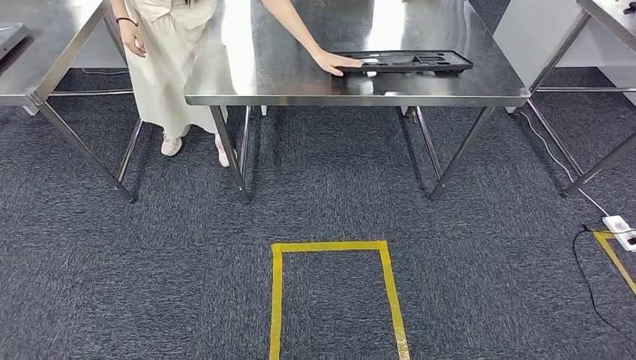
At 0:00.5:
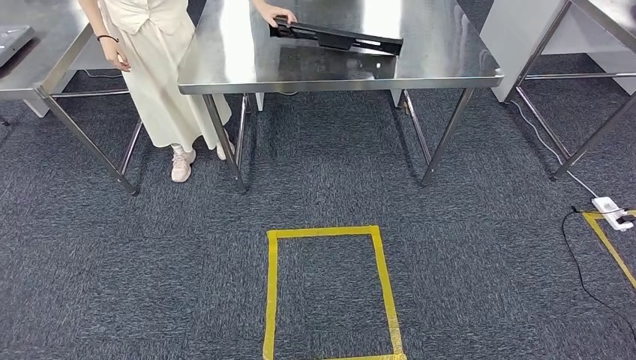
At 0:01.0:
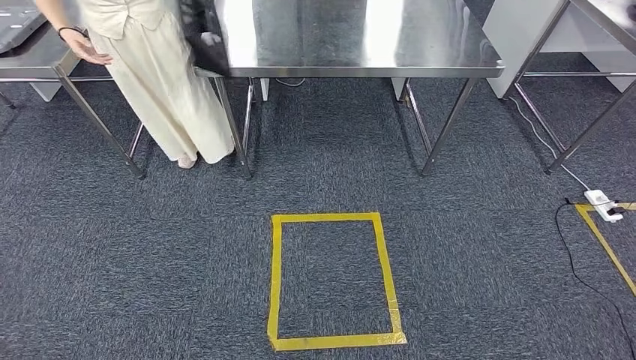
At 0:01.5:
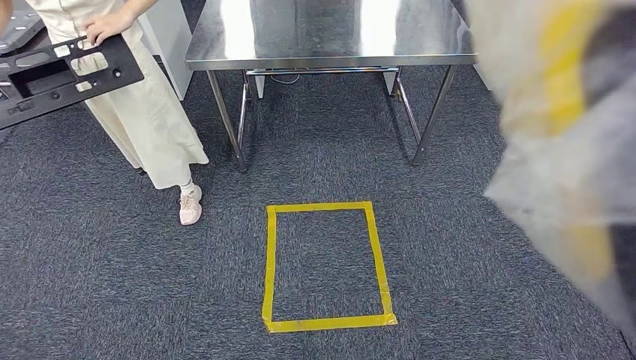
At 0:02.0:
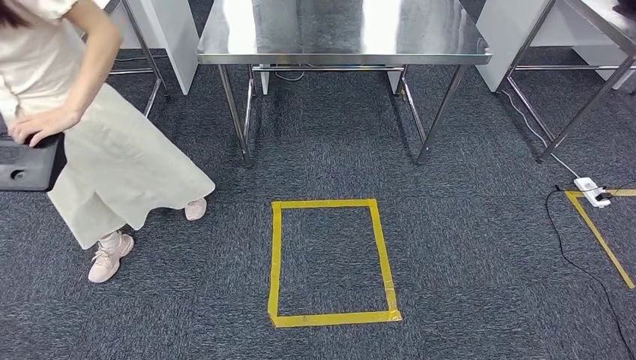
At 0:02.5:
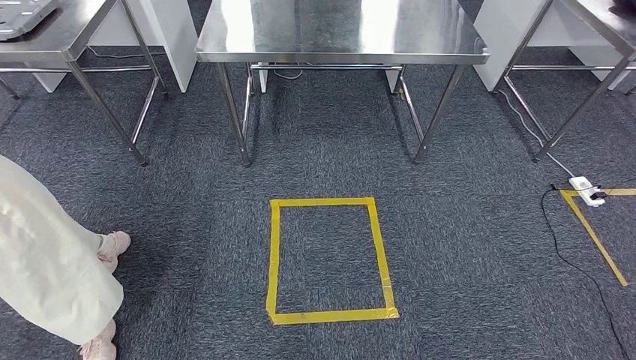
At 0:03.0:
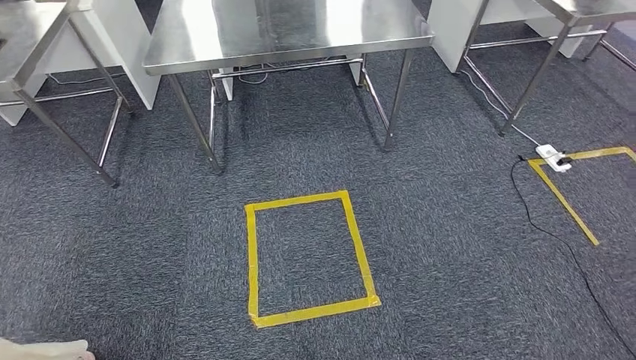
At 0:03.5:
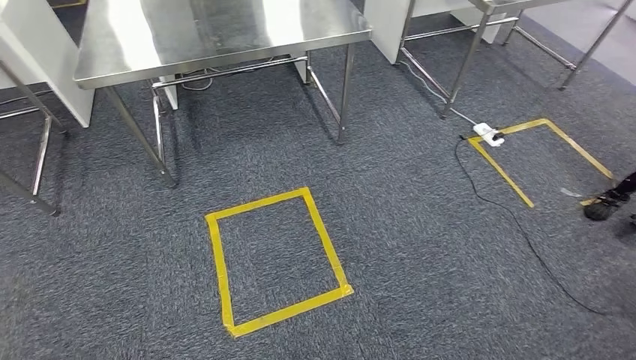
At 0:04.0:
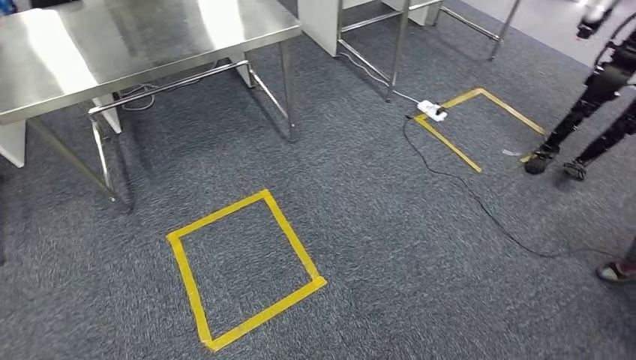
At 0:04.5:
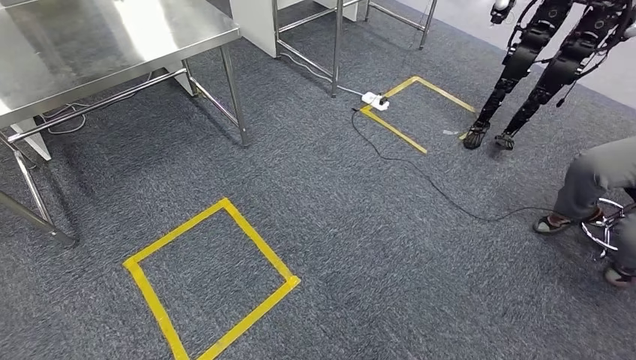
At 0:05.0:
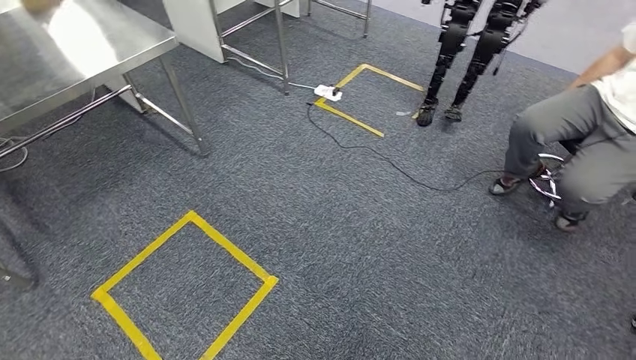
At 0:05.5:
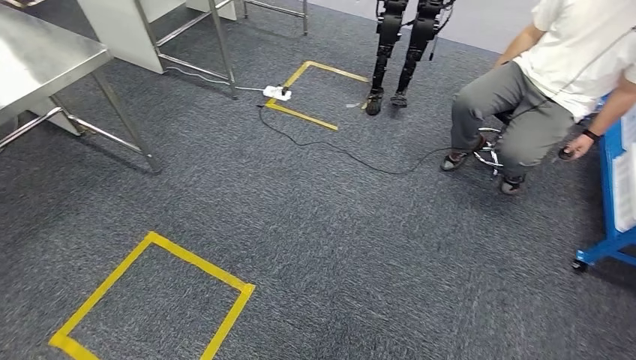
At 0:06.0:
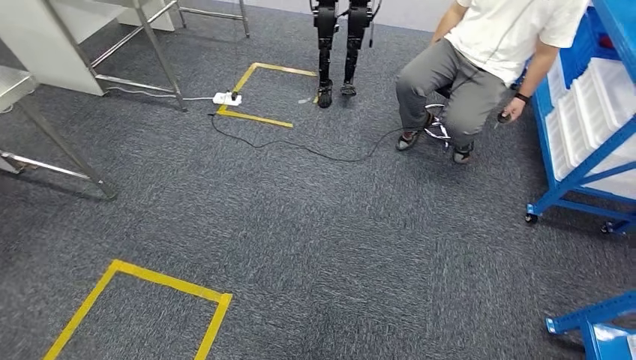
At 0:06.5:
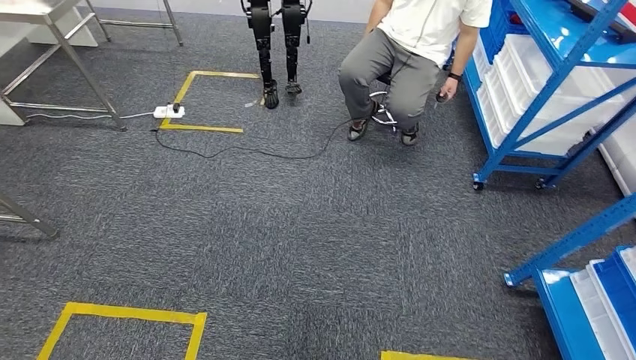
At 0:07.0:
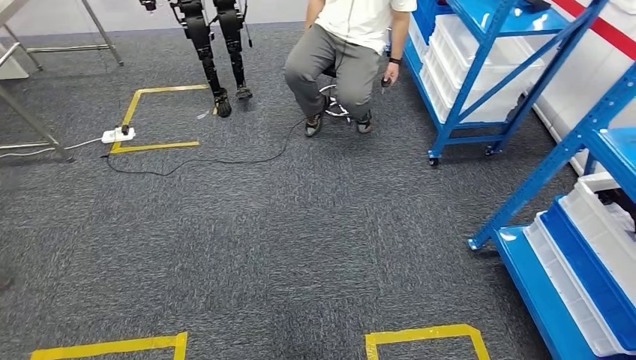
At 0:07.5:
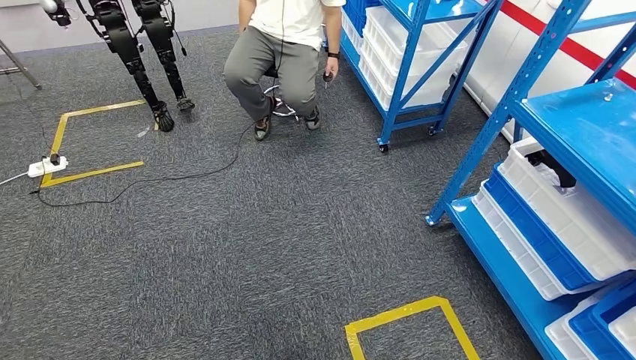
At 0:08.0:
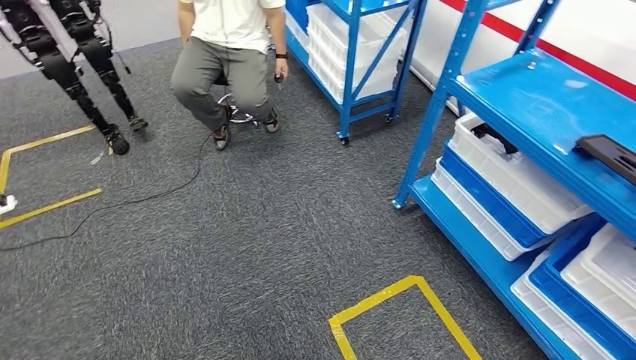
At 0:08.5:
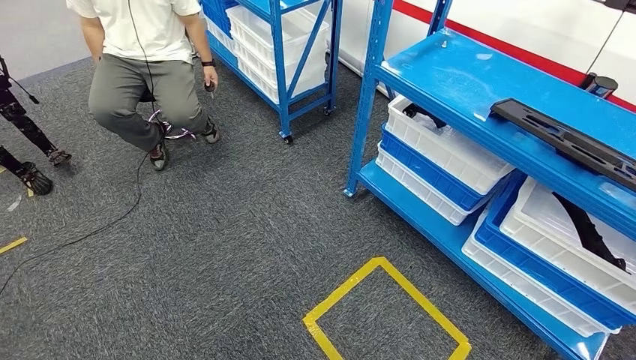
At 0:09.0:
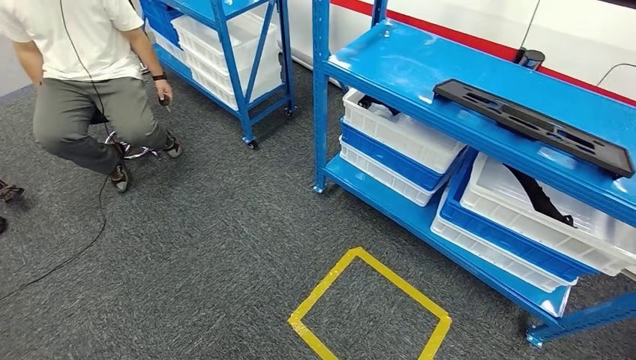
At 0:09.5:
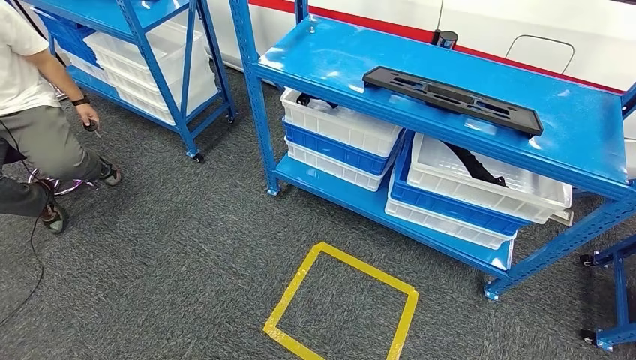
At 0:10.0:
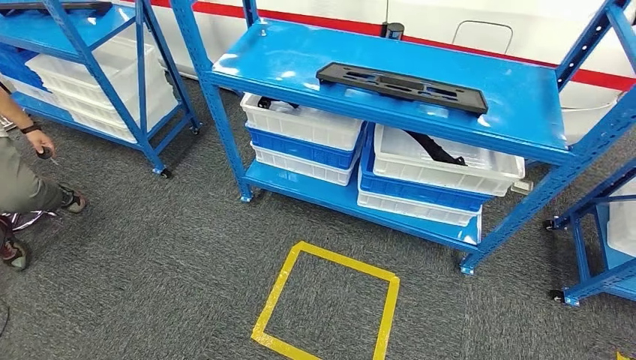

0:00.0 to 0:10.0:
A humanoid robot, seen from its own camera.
Step, 0:00.0 to 0:10.0: Move to the initial position of the shelf.
